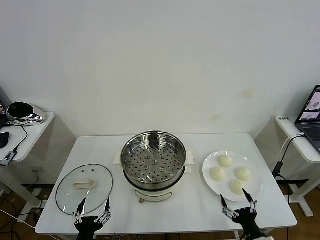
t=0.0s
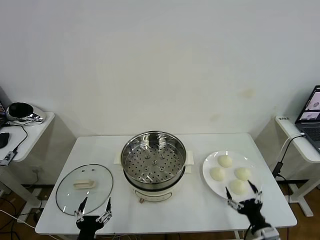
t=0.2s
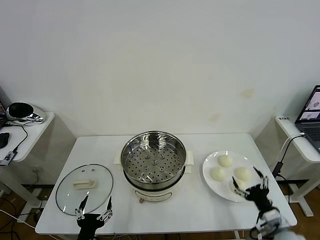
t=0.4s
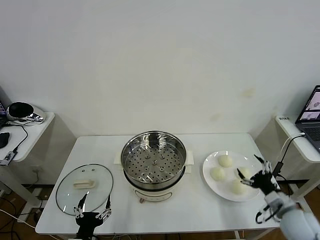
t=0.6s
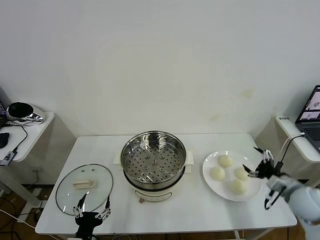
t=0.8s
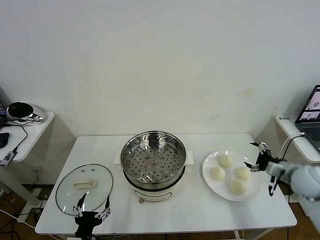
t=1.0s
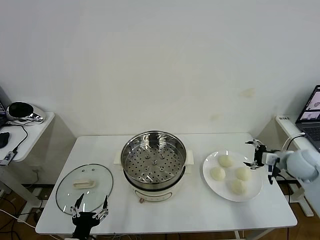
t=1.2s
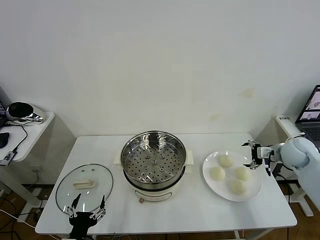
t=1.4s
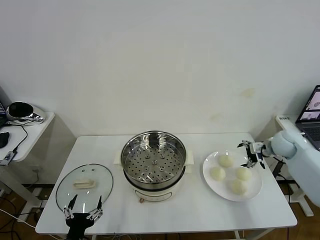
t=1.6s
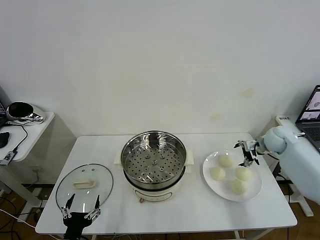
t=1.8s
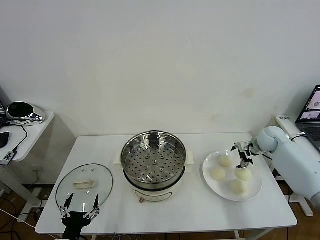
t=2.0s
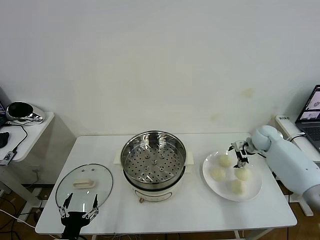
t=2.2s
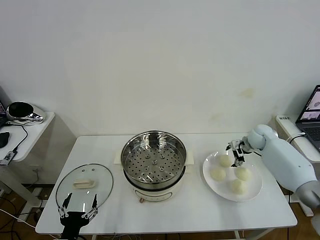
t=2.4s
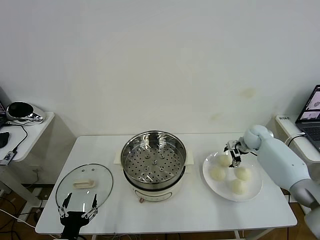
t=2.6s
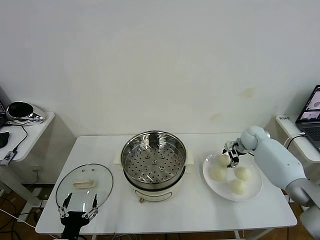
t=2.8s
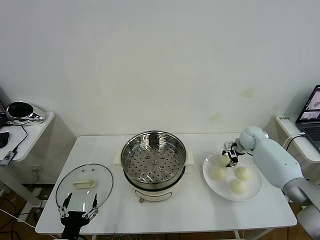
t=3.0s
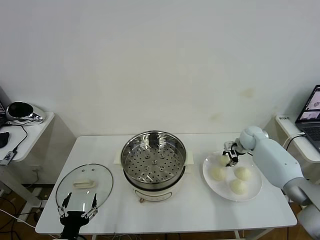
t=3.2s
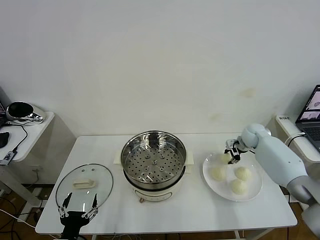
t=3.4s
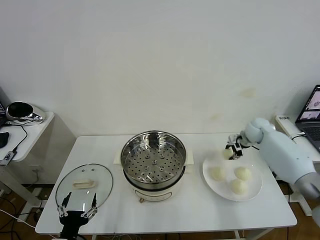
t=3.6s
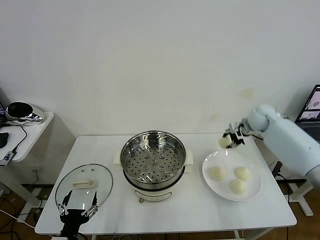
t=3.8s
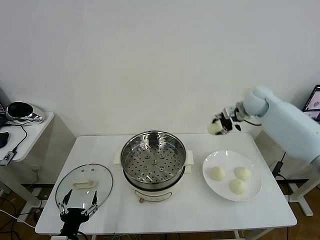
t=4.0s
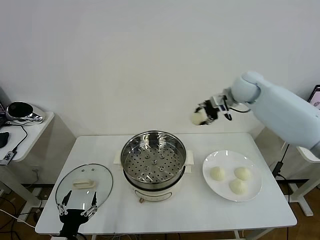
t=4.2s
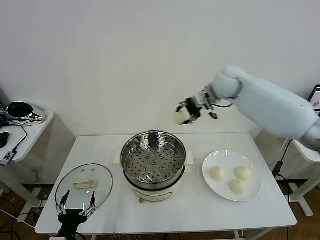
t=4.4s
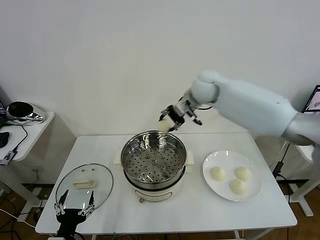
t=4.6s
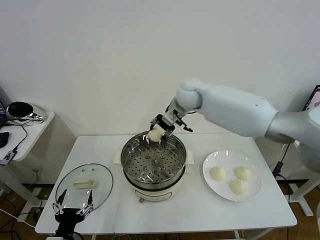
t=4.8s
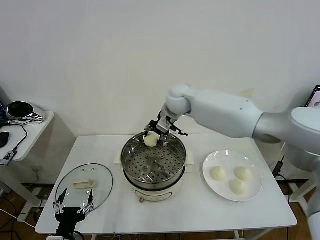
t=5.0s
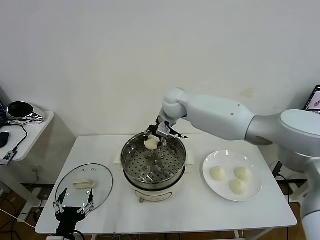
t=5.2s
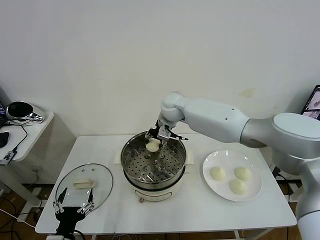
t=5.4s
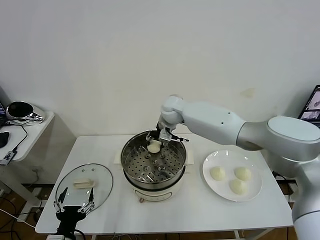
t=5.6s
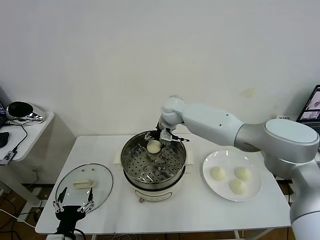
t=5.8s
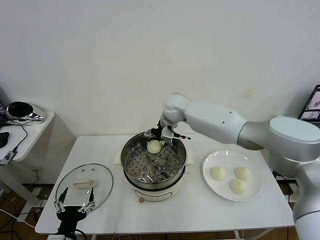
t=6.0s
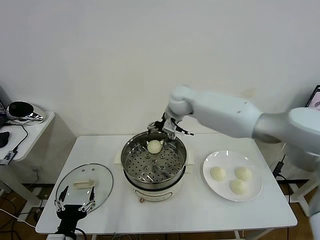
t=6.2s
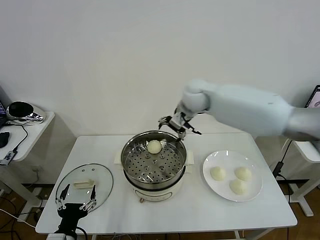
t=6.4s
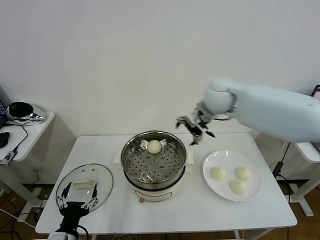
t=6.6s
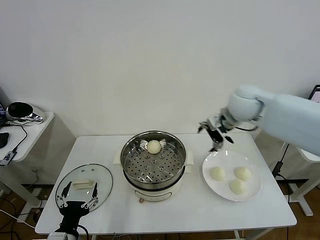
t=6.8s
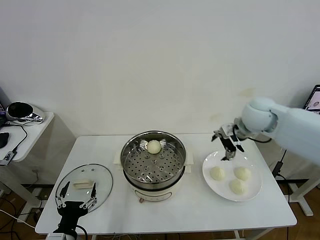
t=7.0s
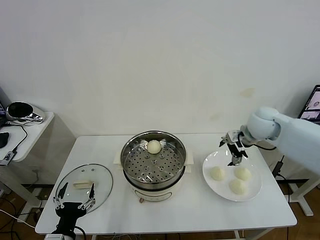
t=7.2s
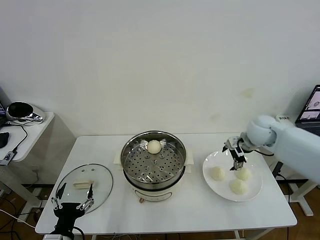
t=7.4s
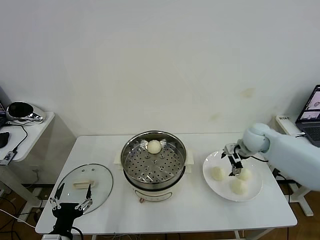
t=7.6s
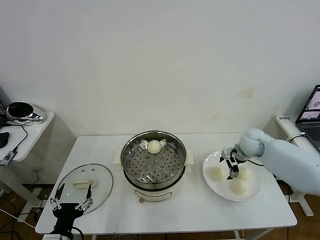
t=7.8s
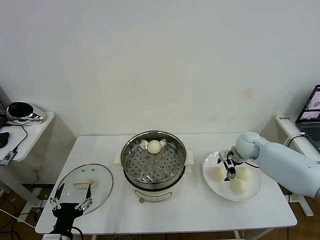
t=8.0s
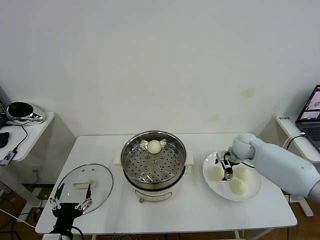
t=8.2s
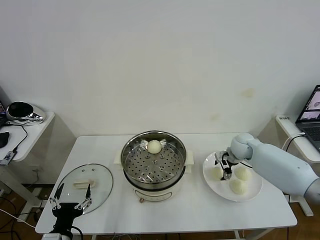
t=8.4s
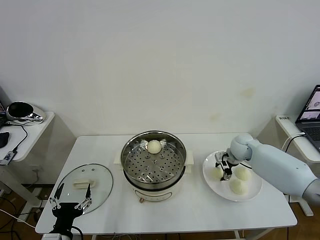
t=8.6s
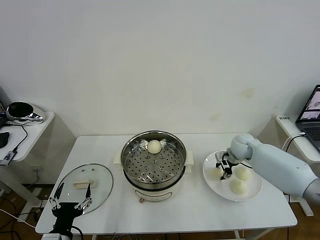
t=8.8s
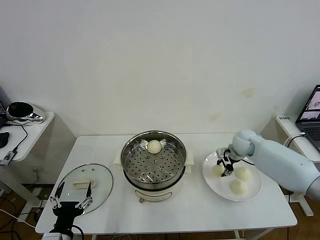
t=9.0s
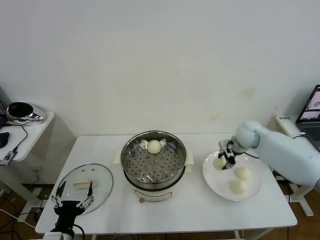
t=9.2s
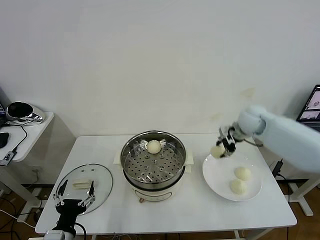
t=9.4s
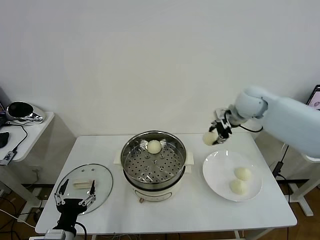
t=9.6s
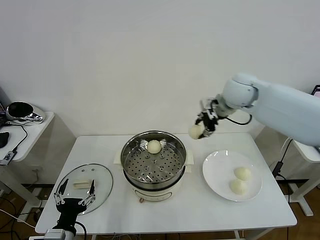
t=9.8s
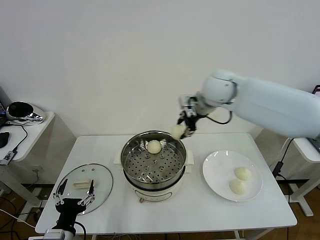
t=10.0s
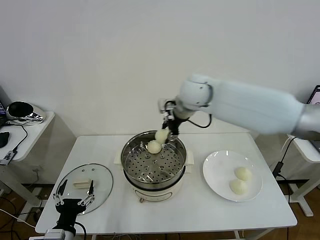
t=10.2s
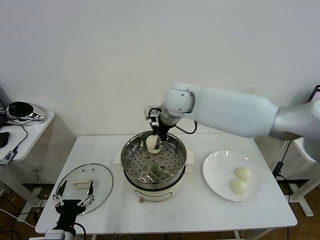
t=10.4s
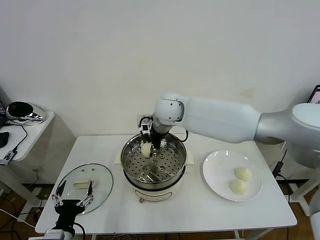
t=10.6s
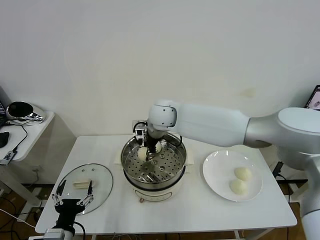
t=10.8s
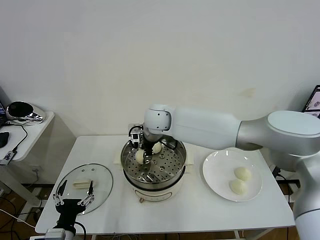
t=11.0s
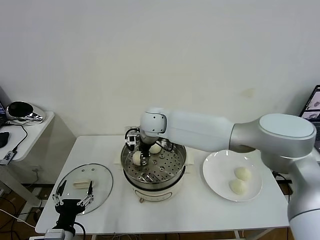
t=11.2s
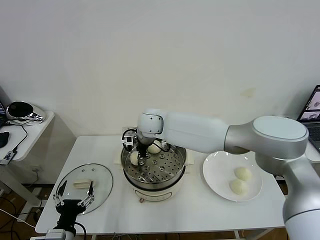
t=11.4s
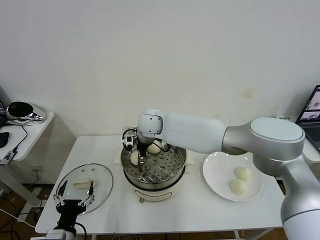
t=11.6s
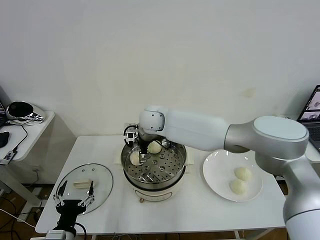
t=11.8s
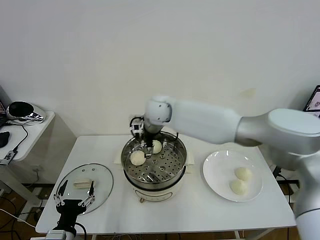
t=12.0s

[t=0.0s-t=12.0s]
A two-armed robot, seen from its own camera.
Task of the whole recording: take steamed baozi put them in steamer then cover it.
Step, t=0.0s to t=3.0s: Grasp the baozi in the plate with right gripper.
Step, t=3.2s to t=6.0s: Place the baozi on the steamer with right gripper.
Step, t=6.2s to t=8.6s: Grasp the baozi in the plate with right gripper.
Step, t=8.8s to t=11.8s: Place the baozi on the steamer with right gripper.
t=1.6s to t=3.0s: The right gripper is displaced forward, to the left and downward by approximately 10 cm, and closes its fingers.
t=3.0s to t=4.4s: The right gripper travels upward and to the left by some 30 cm.
t=4.4s to t=6.0s: The right gripper moves to the left and downward, some 15 cm, and opens its fingers.
t=6.0s to t=7.6s: The right gripper shifts about 30 cm to the right.
t=7.6s to t=9.0s: The right gripper closes its fingers.
t=9.0s to t=10.4s: The right gripper is displaced to the left and upward by about 35 cm.
t=10.4s to t=12.0s: The right gripper moves approximately 10 cm downward and comes back, and opens up.

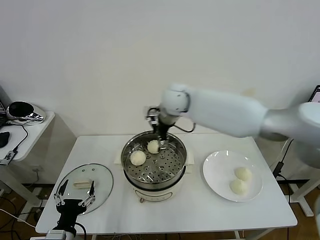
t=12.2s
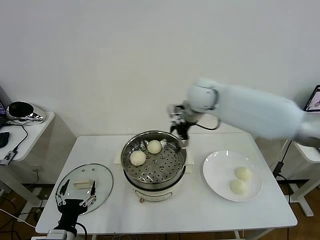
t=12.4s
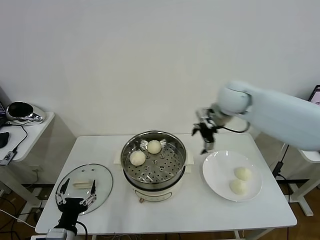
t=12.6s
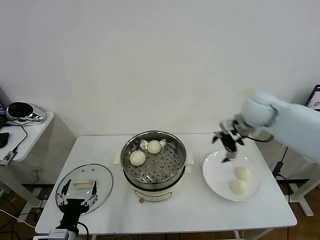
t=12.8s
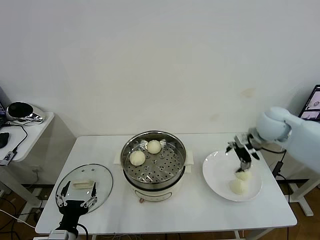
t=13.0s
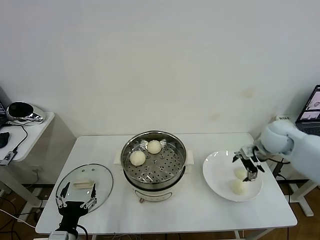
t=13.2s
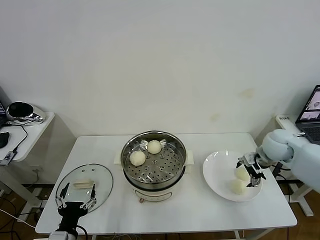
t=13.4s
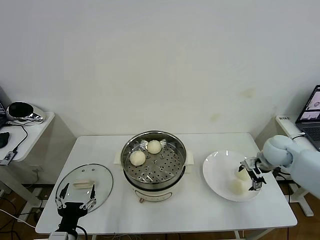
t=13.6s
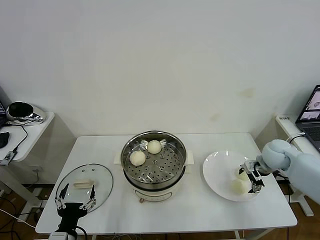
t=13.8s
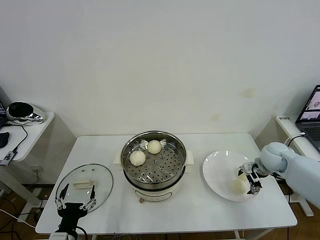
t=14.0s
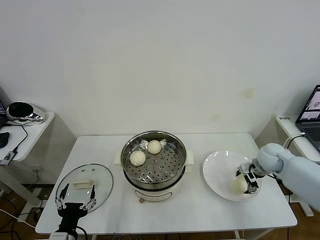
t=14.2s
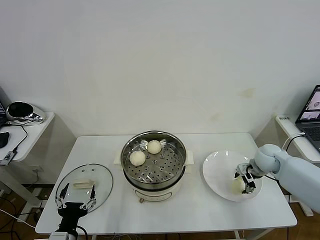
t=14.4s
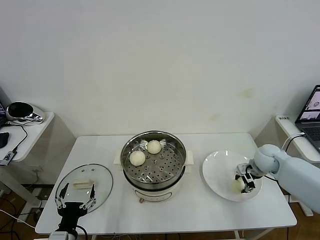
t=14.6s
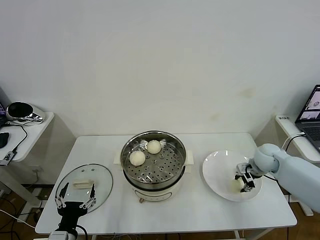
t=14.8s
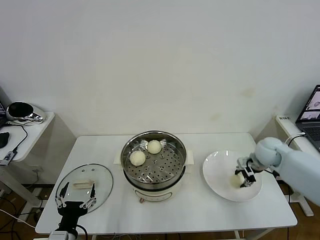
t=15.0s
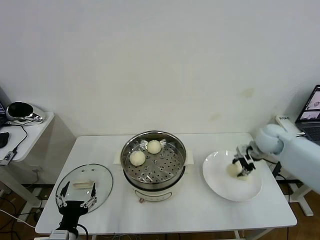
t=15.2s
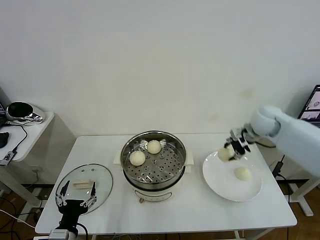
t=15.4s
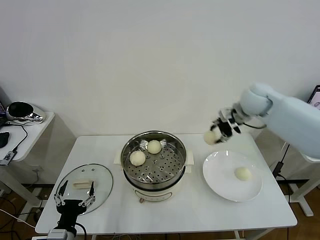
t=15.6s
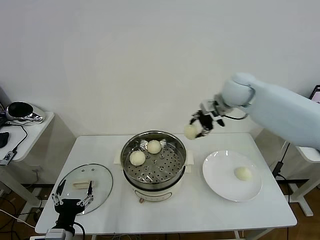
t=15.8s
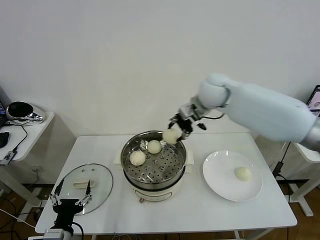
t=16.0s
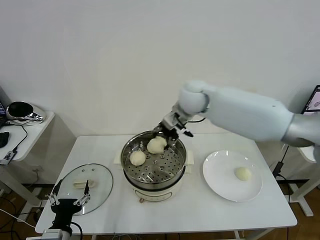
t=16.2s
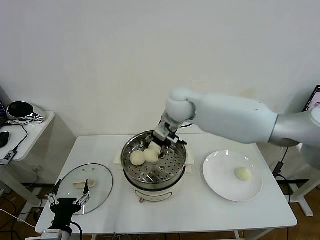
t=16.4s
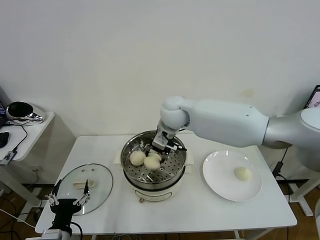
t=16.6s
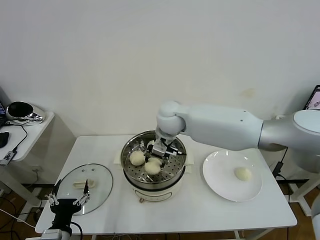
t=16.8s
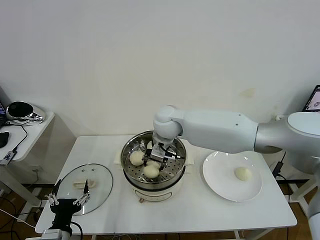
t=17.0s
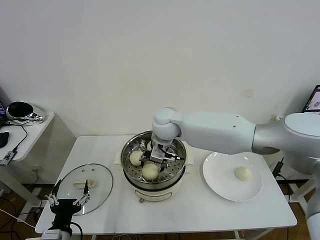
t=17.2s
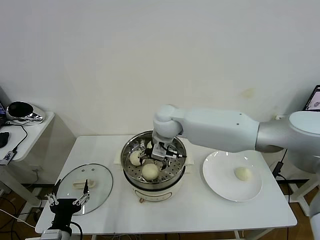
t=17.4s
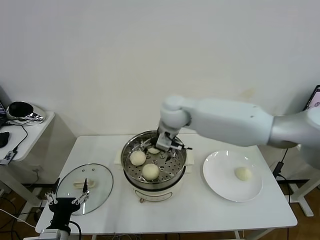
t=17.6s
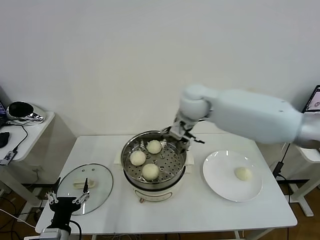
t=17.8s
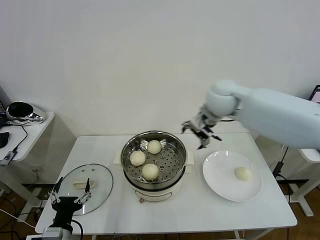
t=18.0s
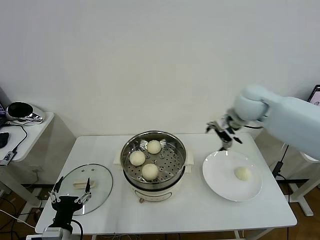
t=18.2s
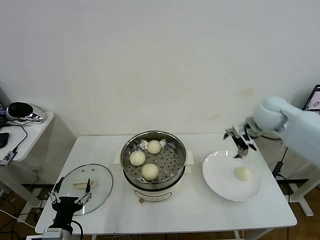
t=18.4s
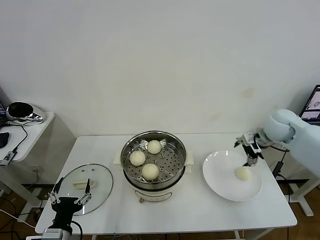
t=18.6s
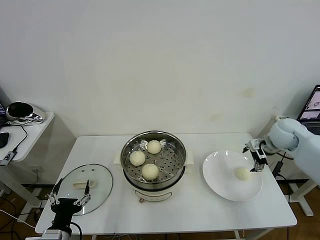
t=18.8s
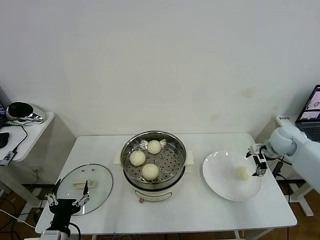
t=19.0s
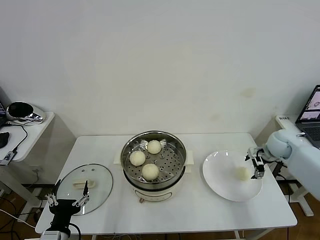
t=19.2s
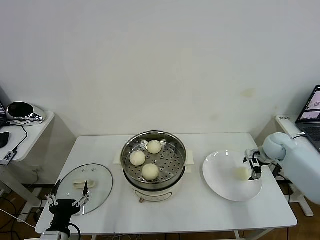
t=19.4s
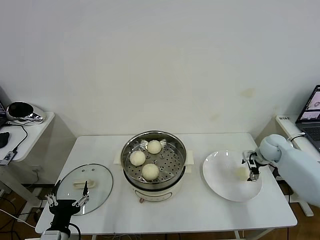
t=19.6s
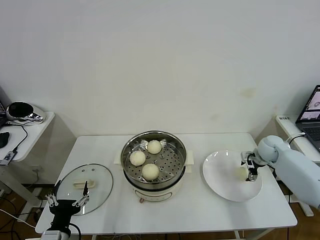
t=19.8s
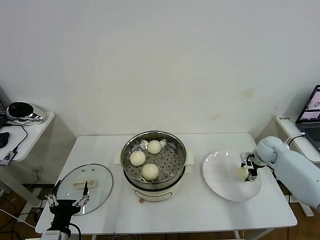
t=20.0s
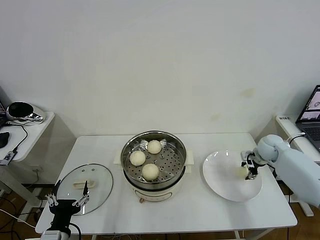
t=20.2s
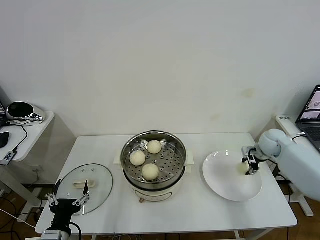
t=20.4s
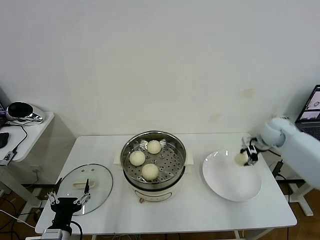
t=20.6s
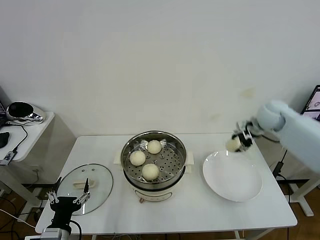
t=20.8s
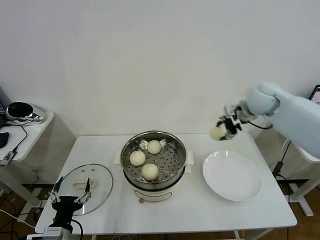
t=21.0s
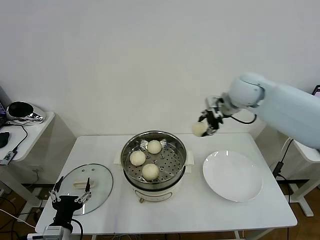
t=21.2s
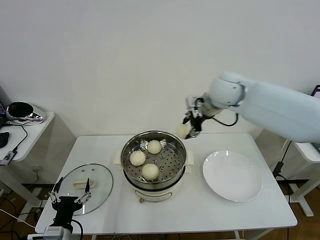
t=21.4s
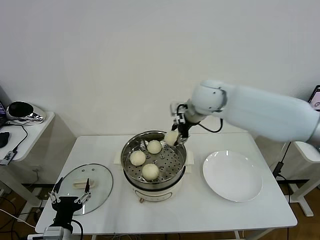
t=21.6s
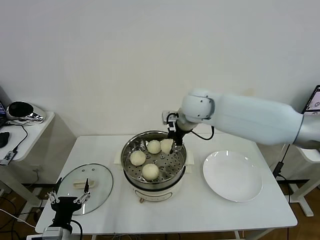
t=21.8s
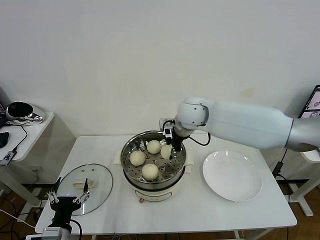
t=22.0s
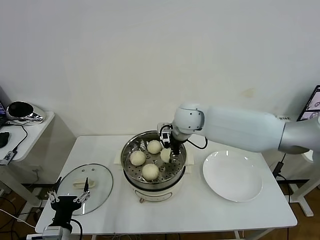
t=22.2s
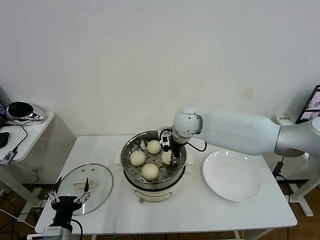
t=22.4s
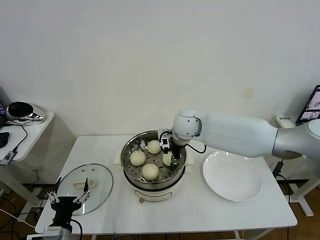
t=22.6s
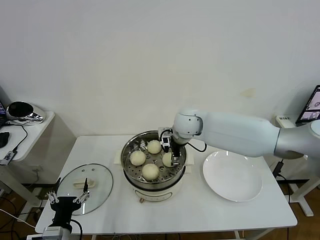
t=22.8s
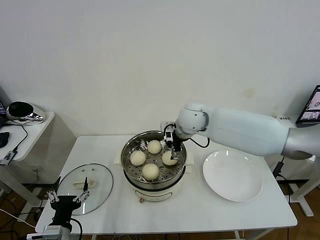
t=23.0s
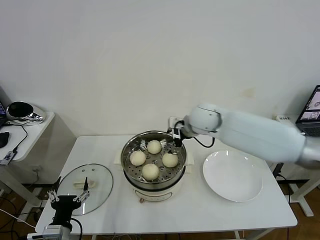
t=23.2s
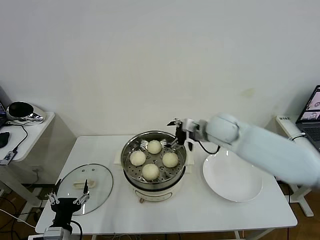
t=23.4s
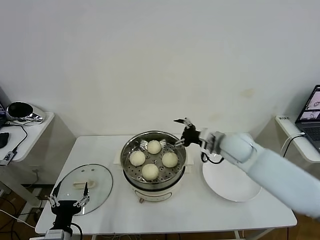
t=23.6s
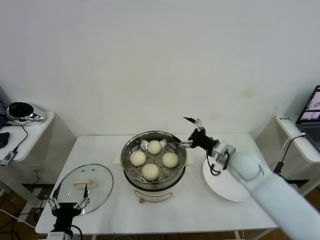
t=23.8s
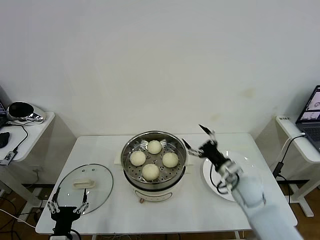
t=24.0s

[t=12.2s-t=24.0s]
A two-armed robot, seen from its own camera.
Task of the whole recording: take steamed baozi put them in steamer then cover it.
Step, t=12.2s to t=14.6s: Grasp the baozi in the plate with right gripper.
Step, t=15.0s to t=17.4s: Place the baozi on the steamer with right gripper.
Step, t=17.6s to t=20.0s: Grasp the baozi in the plate with right gripper.
Step, t=20.2s to t=22.8s: Place the baozi on the steamer with right gripper.
t=12.2s to t=13.6s: The right gripper shifts approximately 35 cm to the right and downward.
t=13.6s to t=15.2s: The right gripper ends up approximately 5 cm from where it was, and closes its fingers.
t=15.2s to t=16.6s: The right gripper goes about 35 cm to the left.
t=16.6s to t=18.2s: The right gripper travels to the right by some 25 cm, and opens.
t=18.2s to t=19.6s: The right gripper travels downward and to the right by roughly 25 cm.
t=19.6s to t=21.0s: The right gripper travels upward and to the left by some 25 cm, and closes.
t=21.0s to t=22.6s: The right gripper goes some 25 cm to the left and downward.
t=22.6s to t=24.0s: The right gripper is displaced to the right, backward and downward by about 30 cm, and opens.
